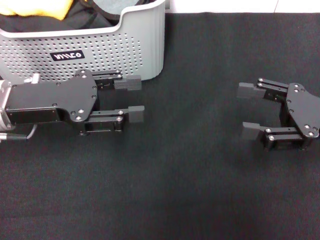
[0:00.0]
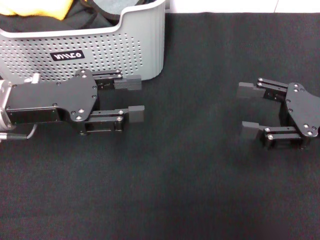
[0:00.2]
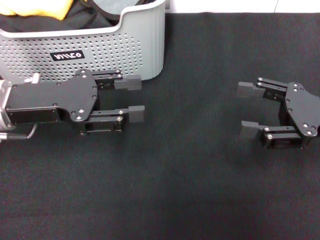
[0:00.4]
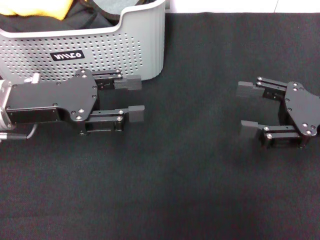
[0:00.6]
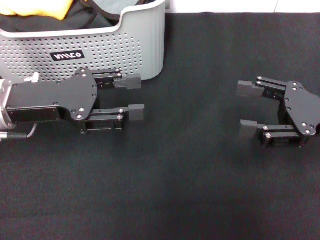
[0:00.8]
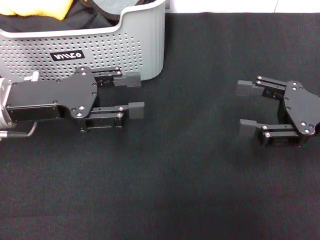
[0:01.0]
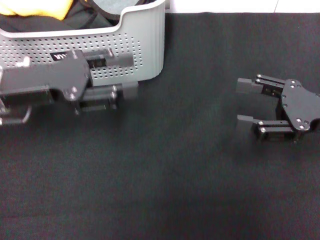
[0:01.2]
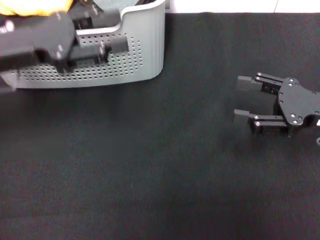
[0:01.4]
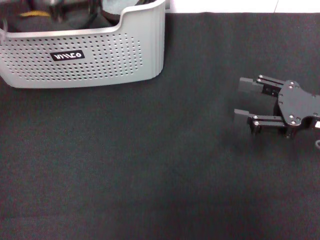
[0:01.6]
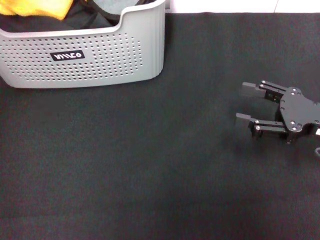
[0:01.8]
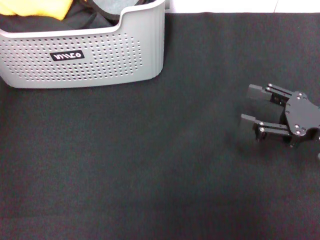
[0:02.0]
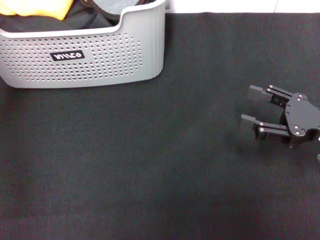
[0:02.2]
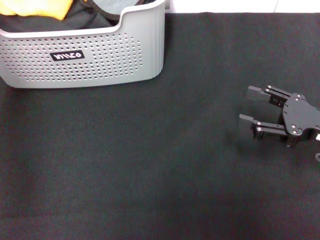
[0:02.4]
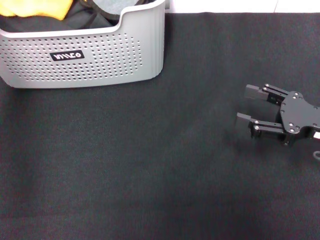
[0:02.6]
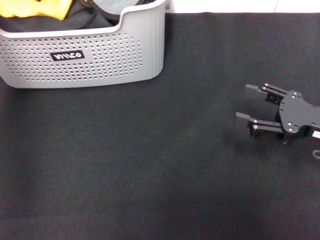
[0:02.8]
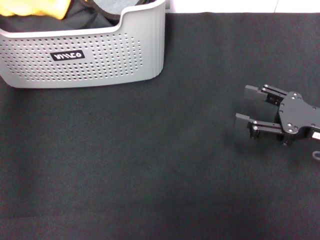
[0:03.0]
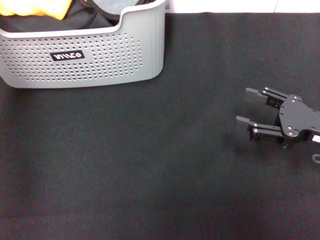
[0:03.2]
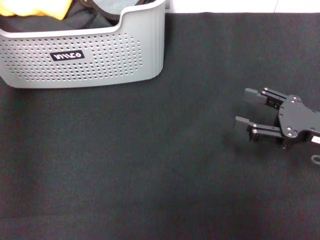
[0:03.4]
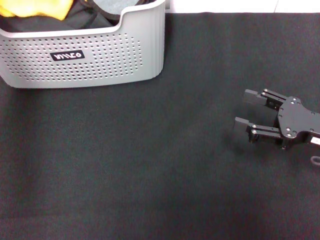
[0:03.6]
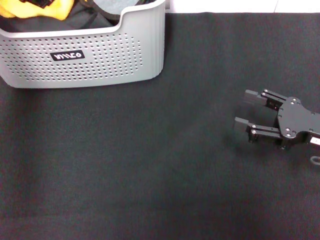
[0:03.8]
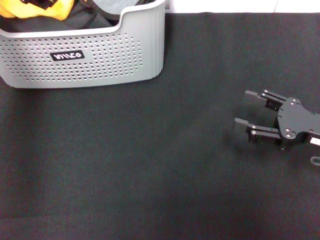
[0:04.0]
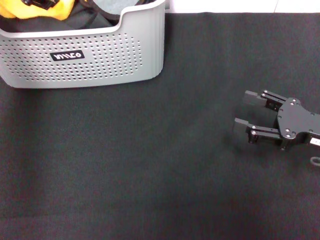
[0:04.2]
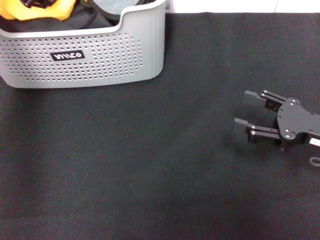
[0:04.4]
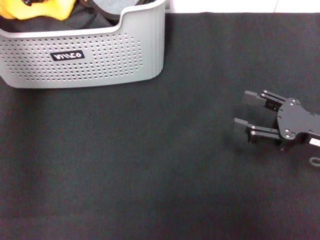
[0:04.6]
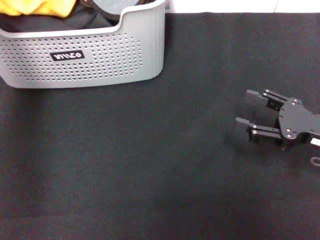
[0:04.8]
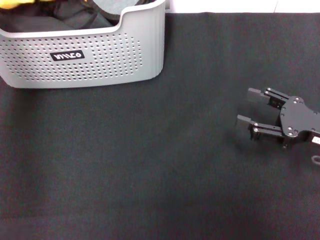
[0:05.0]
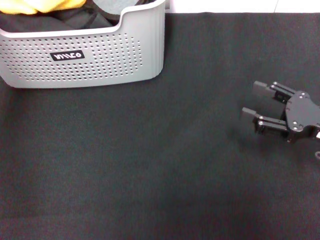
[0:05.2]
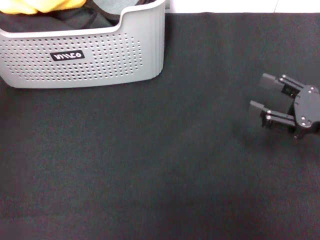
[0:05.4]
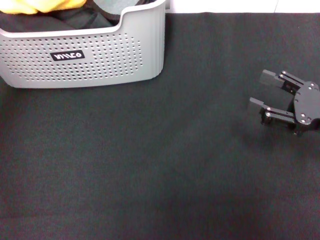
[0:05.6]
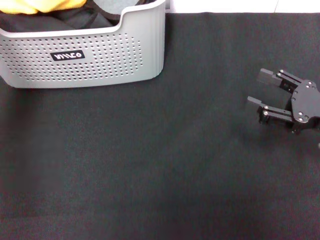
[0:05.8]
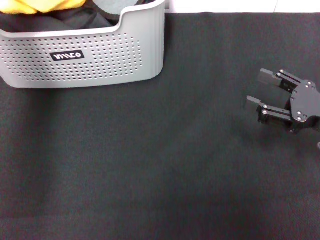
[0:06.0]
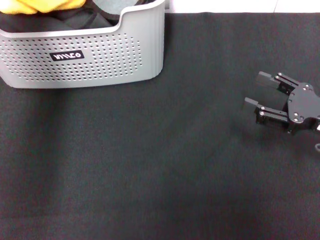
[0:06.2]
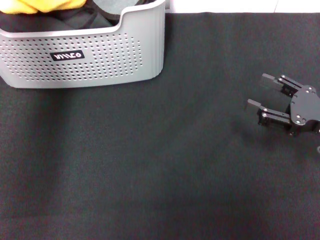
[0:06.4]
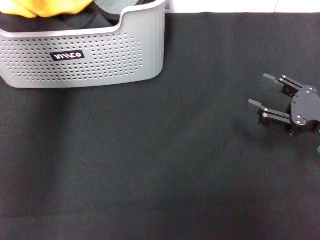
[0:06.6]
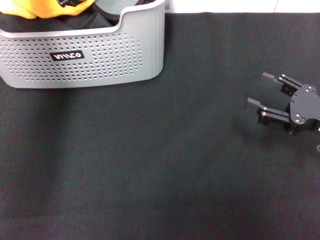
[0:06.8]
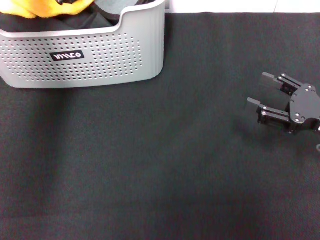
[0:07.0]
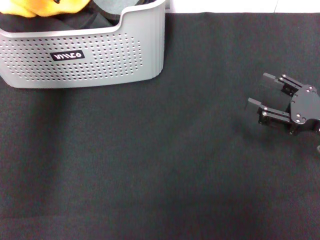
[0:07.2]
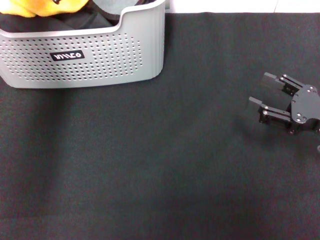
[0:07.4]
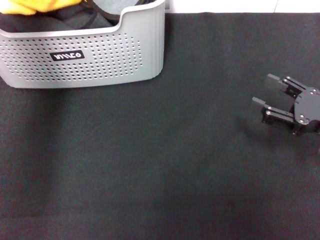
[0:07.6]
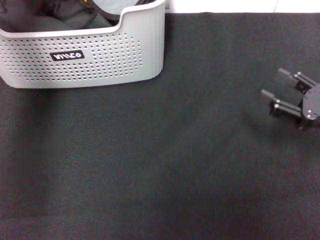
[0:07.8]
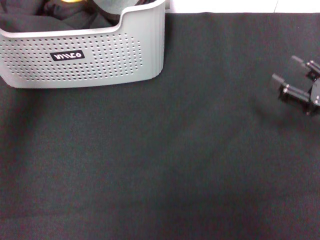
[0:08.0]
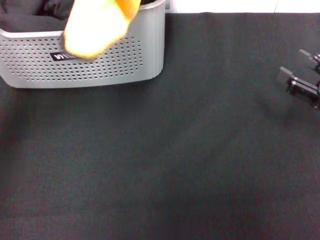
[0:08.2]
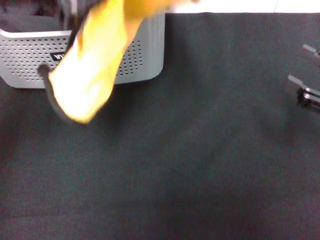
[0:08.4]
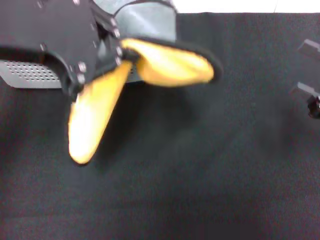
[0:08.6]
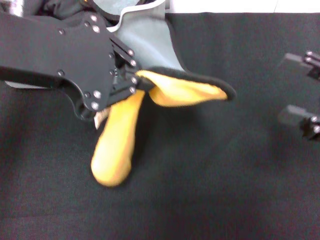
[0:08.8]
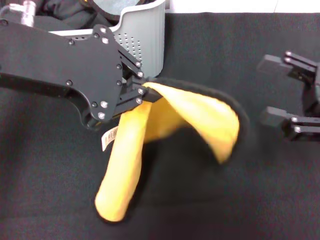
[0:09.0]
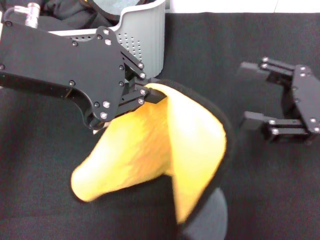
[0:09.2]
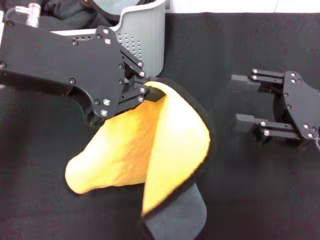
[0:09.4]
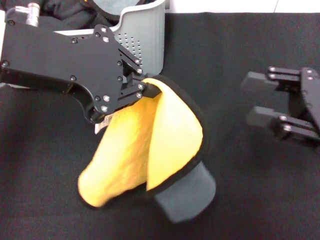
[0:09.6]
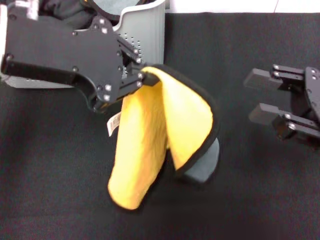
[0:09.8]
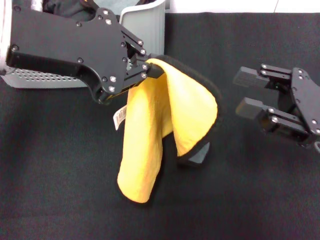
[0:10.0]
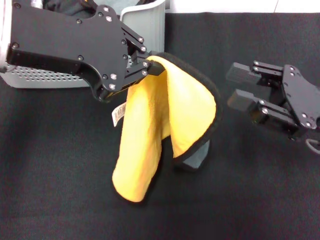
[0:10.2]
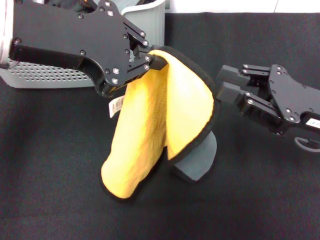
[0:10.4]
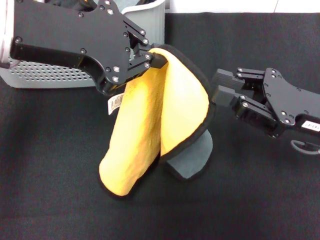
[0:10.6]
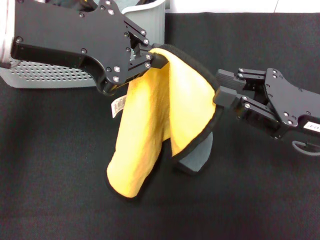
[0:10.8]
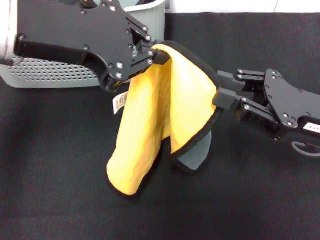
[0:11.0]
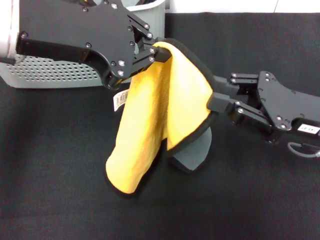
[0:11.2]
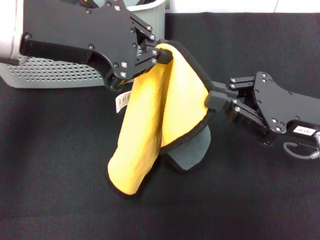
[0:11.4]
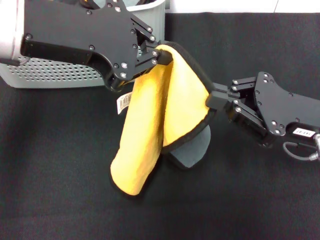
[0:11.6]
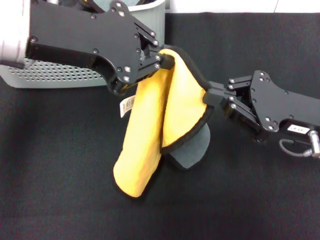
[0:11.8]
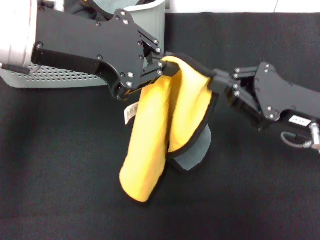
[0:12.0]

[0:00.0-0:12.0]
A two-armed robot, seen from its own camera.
Task of the whole recording: pick up the towel from the storage box and lay it flat on the black tablecloth.
Step, 0:00.0 to 0:04.6: Pick up a towel with the left gripper.
Step, 0:04.8 to 0:11.6: Spread the towel flat with the left gripper.
0:00.0 to 0:01.6: The left gripper shifts roughly 10 cm upward and forward.
0:01.6 to 0:03.0: The left gripper moves upward and forward, roughly 10 cm.
0:03.0 to 0:04.4: The grippers move only a little.
0:04.4 to 0:06.0: The left gripper moves some 10 cm upward and comes back, and closes up.
0:06.0 to 0:07.6: The grippers stay close to where they were, moving slightly.
0:07.6 to 0:09.0: The left gripper moves backward, roughly 15 cm, while the right gripper is displaced upward by roughly 5 cm.
0:09.0 to 0:10.4: The right gripper heads to the left, covering some 5 cm, and closes.
0:10.4 to 0:12.0: The right gripper closes.

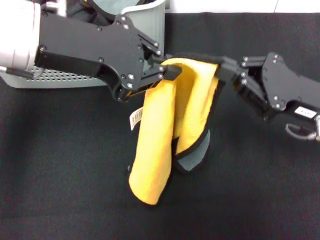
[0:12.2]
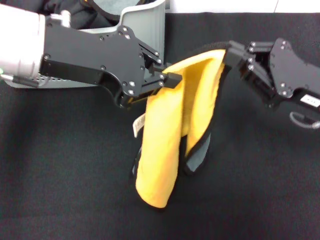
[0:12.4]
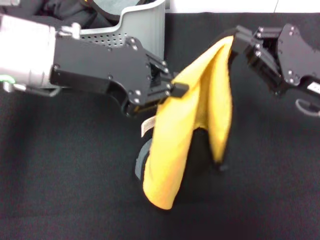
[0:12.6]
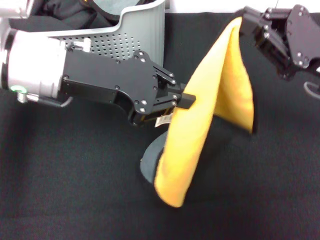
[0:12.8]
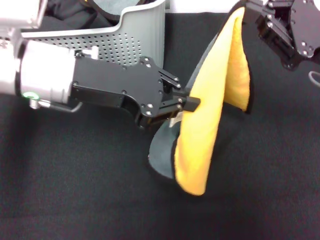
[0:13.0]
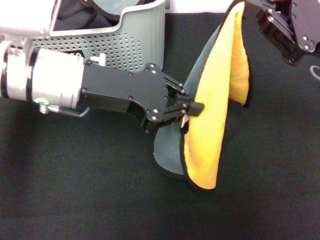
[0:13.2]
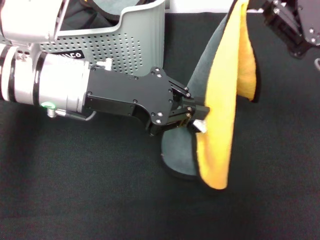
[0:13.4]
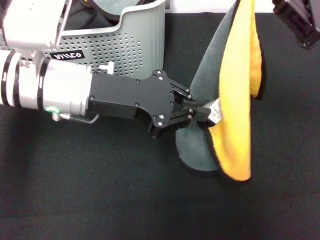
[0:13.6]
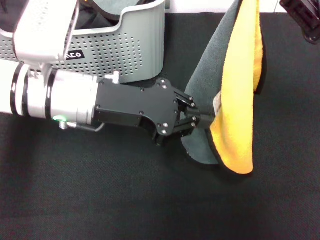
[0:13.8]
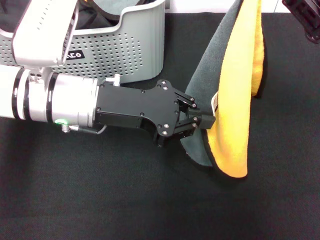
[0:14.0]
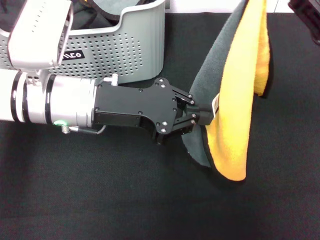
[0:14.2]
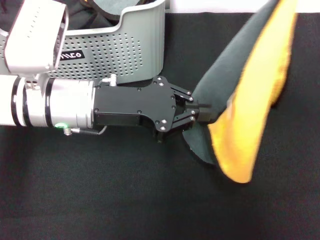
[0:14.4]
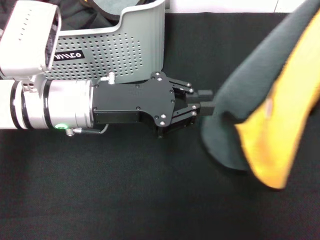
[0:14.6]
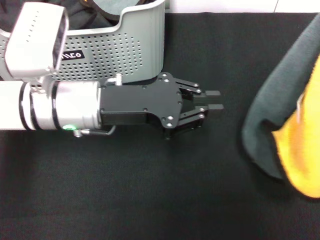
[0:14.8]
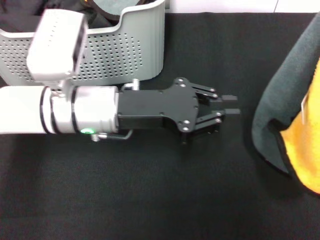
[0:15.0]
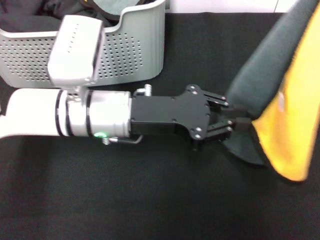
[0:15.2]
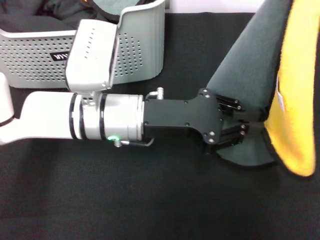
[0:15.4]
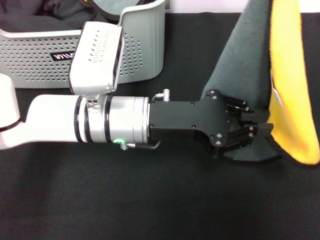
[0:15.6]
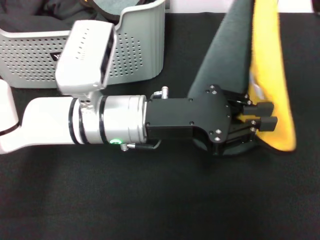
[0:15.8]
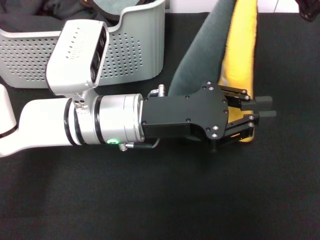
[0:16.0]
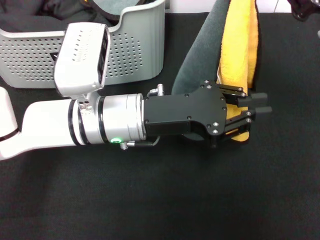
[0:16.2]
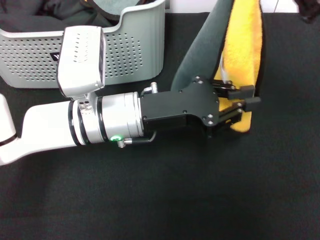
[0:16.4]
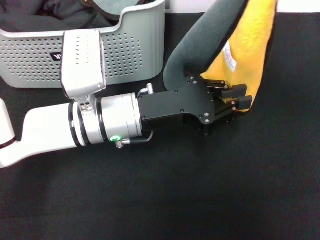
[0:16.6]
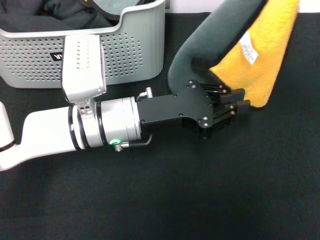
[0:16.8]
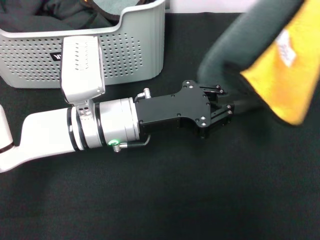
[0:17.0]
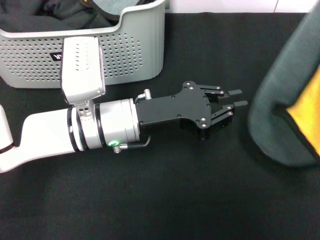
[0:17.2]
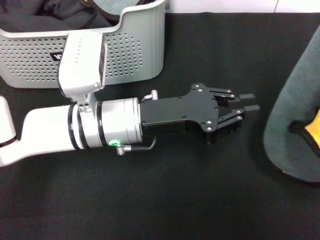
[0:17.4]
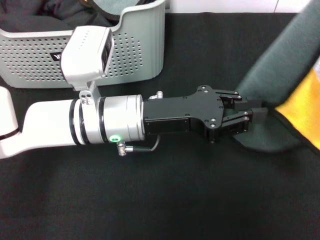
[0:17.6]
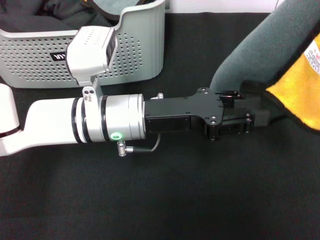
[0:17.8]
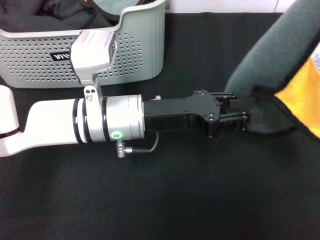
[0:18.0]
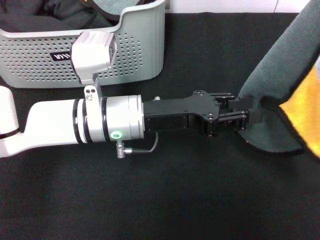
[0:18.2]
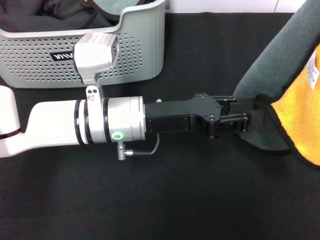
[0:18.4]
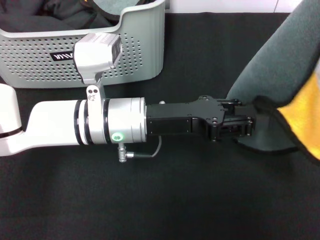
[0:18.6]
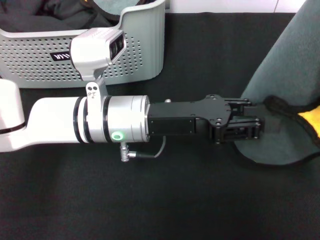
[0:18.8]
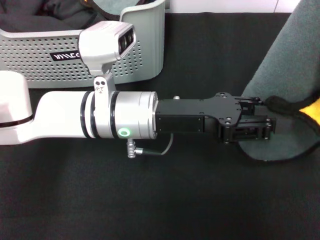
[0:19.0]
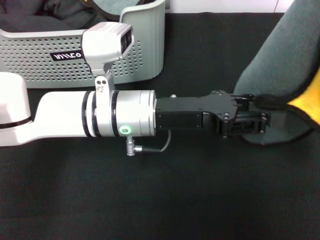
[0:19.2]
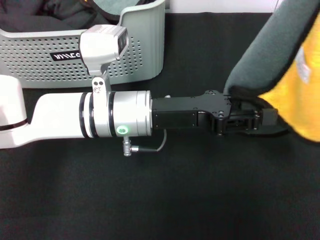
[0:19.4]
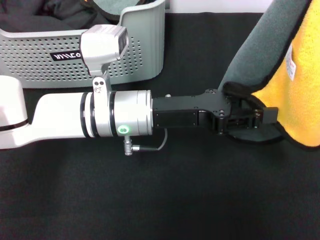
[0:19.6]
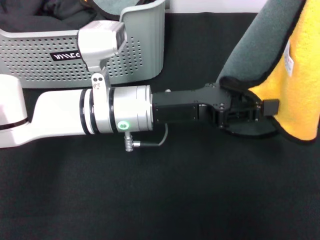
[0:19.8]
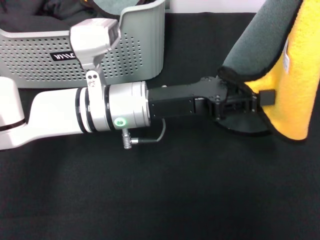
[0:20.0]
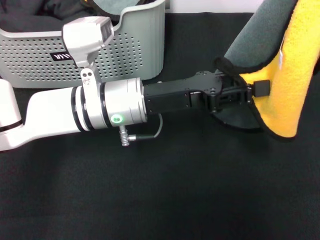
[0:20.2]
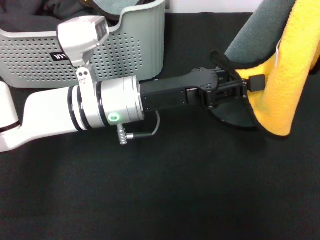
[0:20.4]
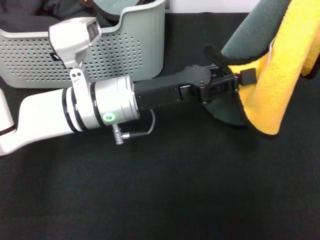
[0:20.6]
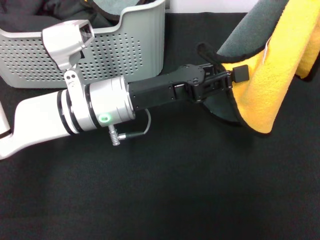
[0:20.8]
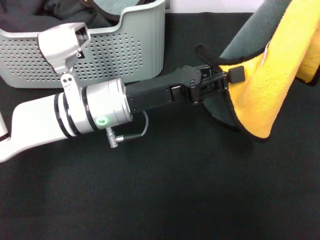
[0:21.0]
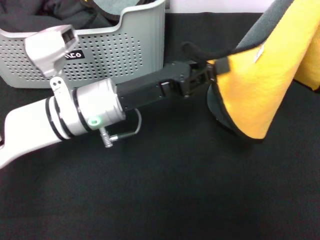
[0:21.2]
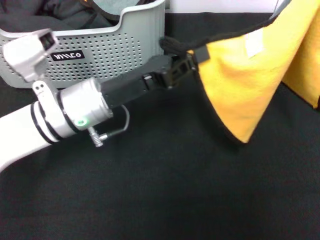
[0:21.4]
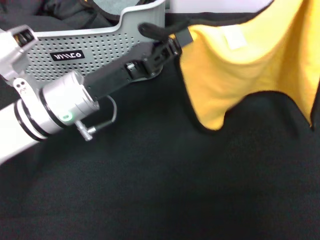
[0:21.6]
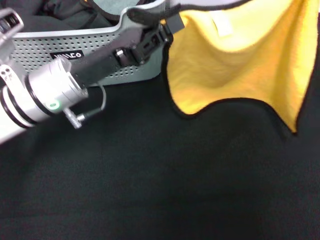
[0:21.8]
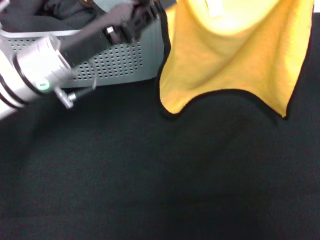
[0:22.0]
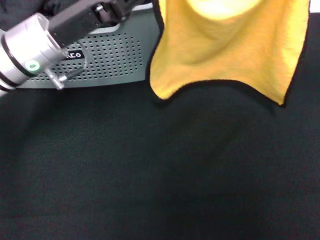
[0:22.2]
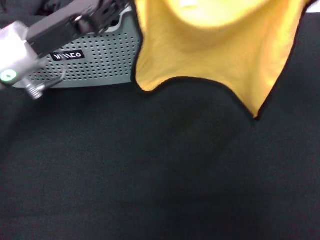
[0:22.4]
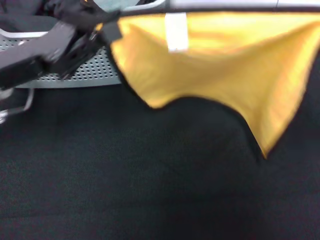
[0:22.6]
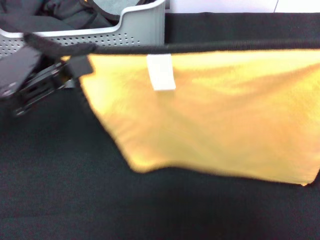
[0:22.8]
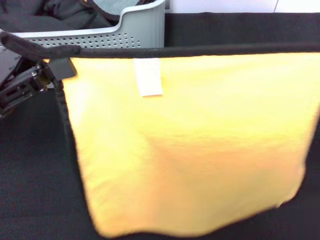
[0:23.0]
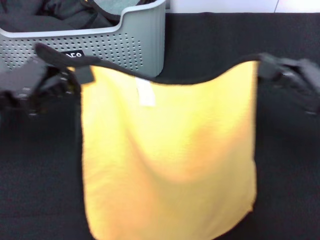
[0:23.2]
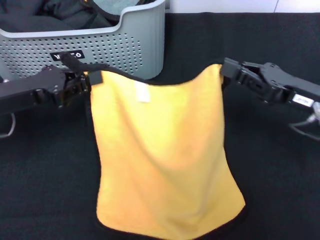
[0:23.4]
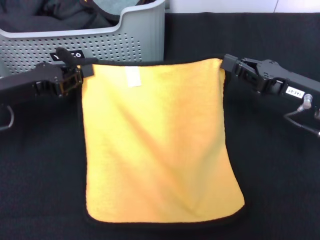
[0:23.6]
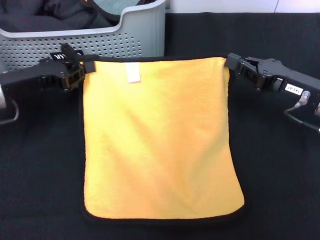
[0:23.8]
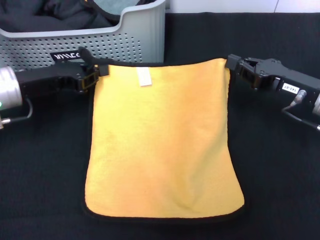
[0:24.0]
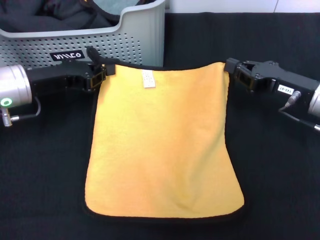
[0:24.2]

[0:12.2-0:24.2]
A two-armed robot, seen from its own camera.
Task of the whole recording: pick up the towel from the storage box and lay it flat on the black tablecloth.
0:12.2 to 0:13.8: The left gripper goes roughly 10 cm downward. The right gripper goes approximately 10 cm upward.
0:13.8 to 0:15.2: The left gripper ends up roughly 5 cm from where it was.
0:21.2 to 0:22.6: The right gripper shifts by some 5 cm, while the left gripper travels to the left and upward by roughly 15 cm, and closes up.
0:22.6 to 0:24.2: The right gripper travels to the left, forward and downward by some 15 cm, while the left gripper goes roughly 5 cm downward.
